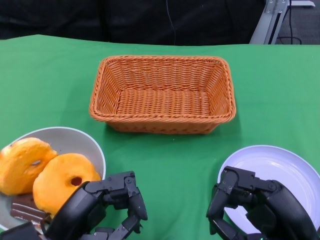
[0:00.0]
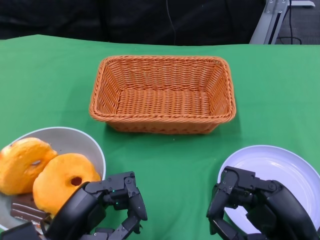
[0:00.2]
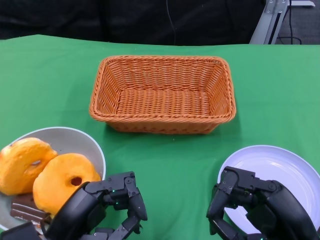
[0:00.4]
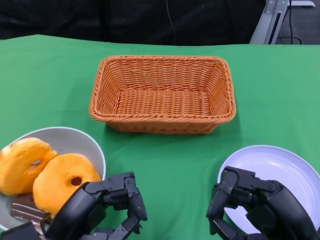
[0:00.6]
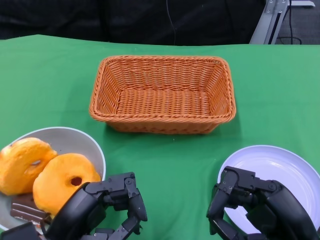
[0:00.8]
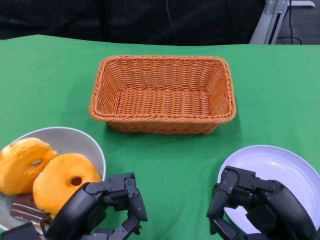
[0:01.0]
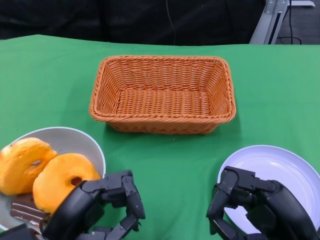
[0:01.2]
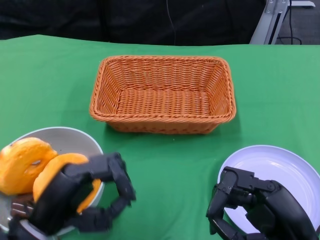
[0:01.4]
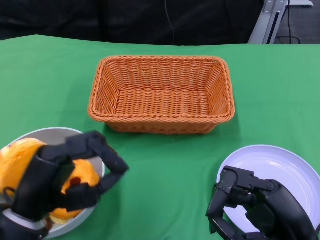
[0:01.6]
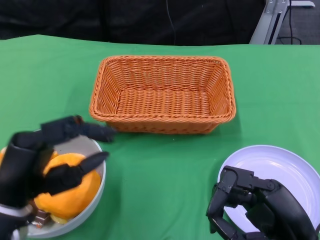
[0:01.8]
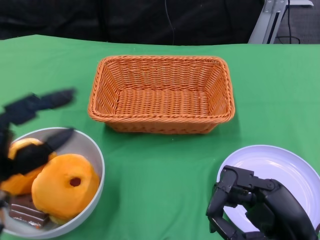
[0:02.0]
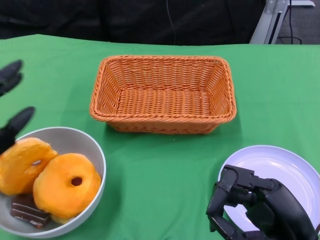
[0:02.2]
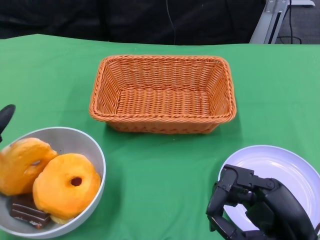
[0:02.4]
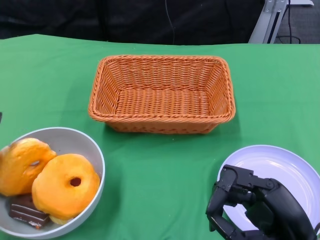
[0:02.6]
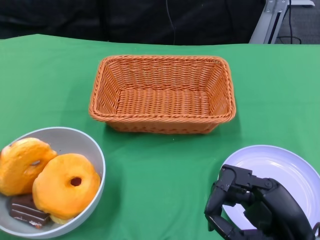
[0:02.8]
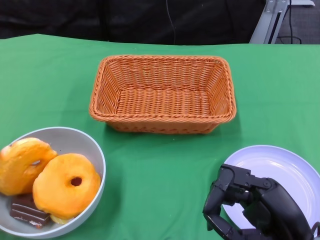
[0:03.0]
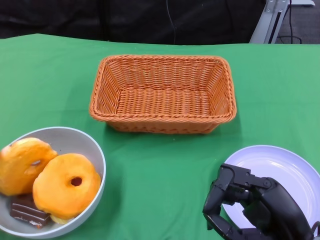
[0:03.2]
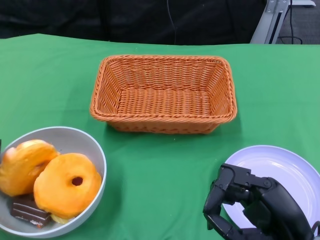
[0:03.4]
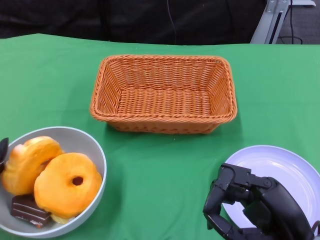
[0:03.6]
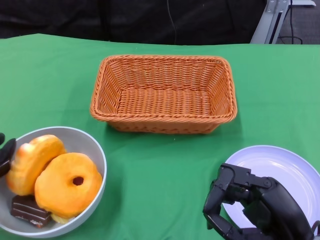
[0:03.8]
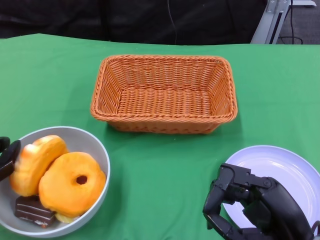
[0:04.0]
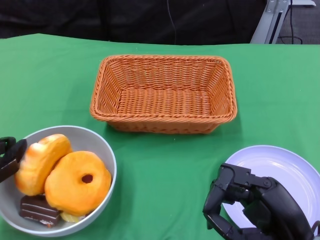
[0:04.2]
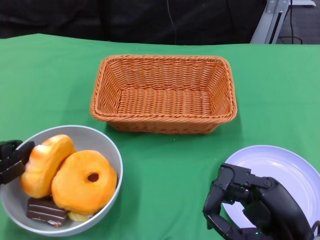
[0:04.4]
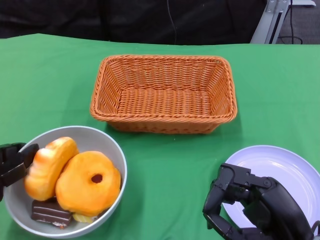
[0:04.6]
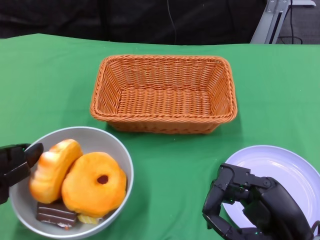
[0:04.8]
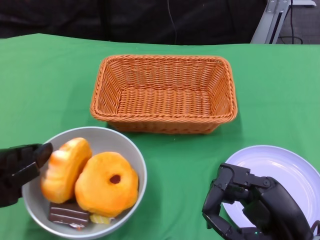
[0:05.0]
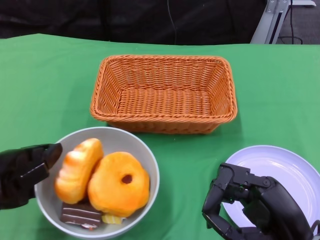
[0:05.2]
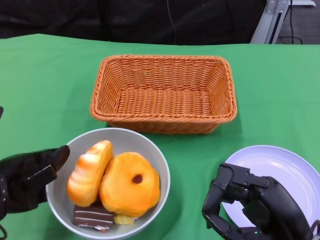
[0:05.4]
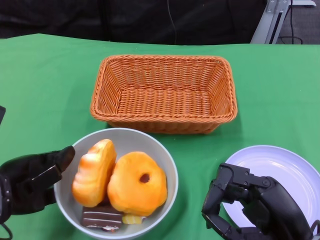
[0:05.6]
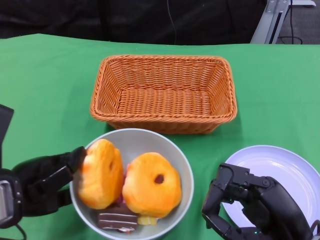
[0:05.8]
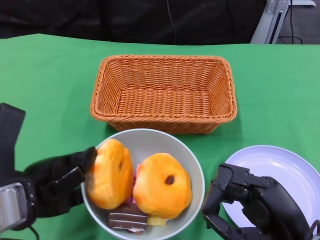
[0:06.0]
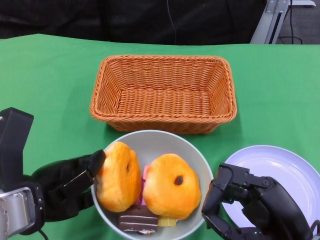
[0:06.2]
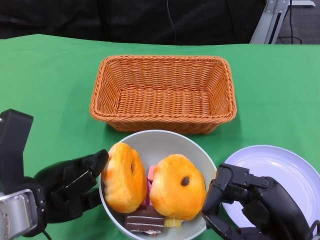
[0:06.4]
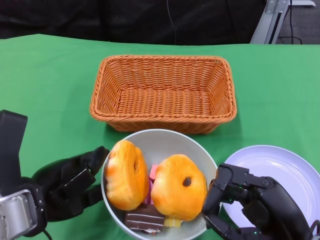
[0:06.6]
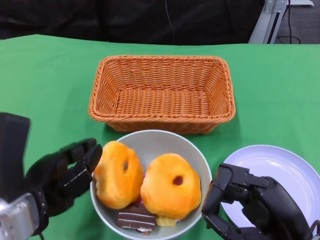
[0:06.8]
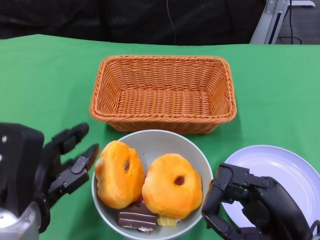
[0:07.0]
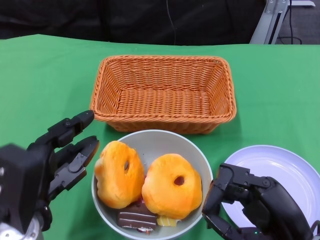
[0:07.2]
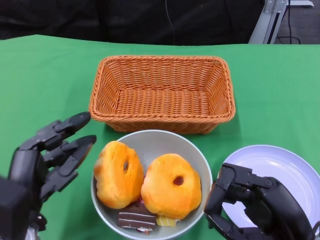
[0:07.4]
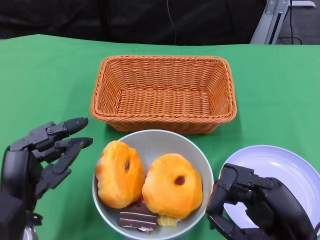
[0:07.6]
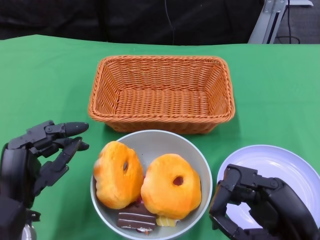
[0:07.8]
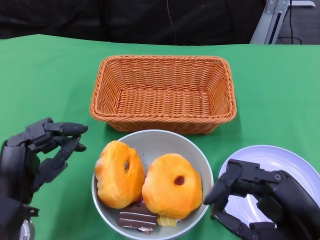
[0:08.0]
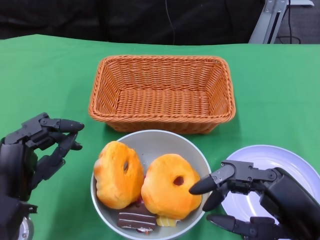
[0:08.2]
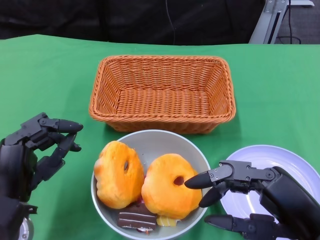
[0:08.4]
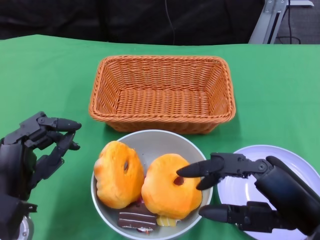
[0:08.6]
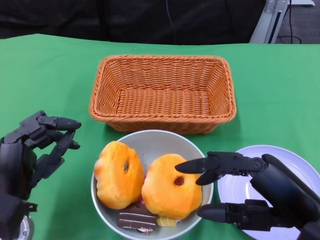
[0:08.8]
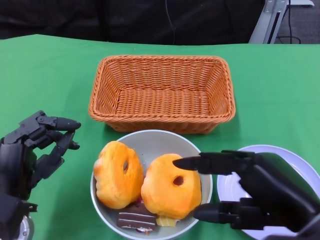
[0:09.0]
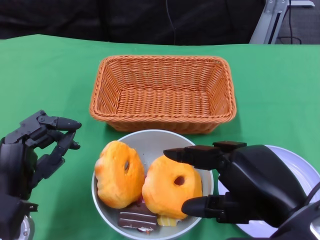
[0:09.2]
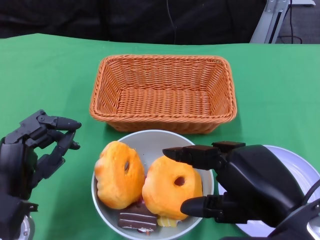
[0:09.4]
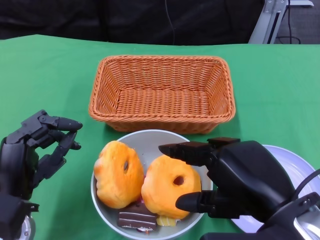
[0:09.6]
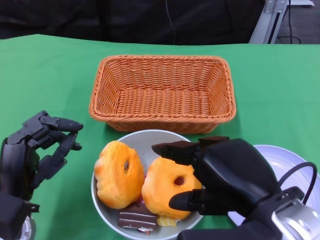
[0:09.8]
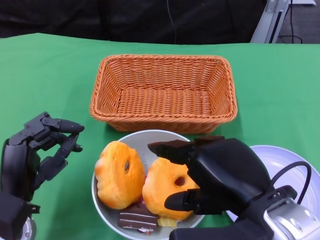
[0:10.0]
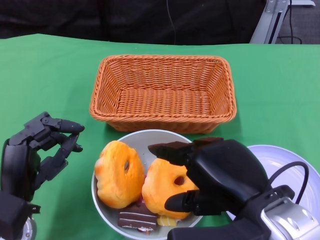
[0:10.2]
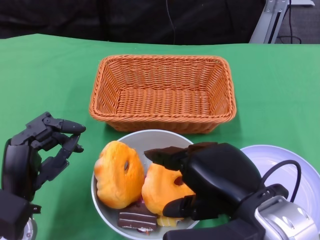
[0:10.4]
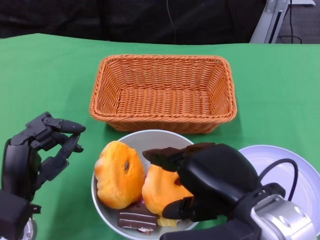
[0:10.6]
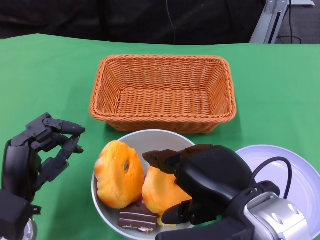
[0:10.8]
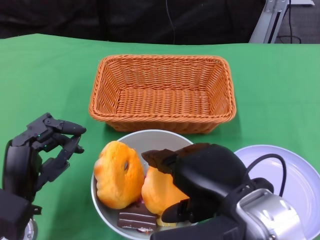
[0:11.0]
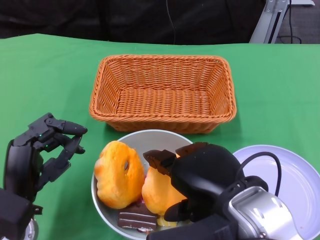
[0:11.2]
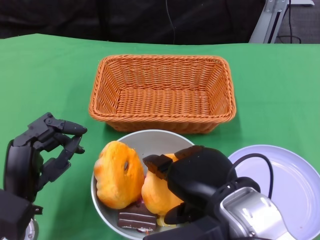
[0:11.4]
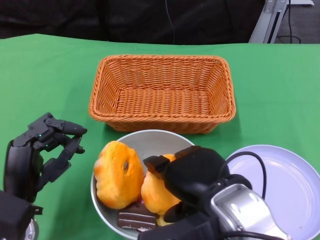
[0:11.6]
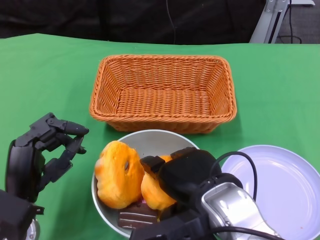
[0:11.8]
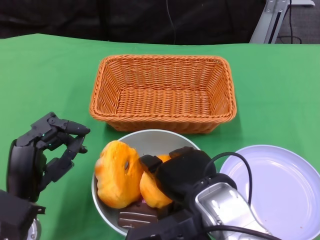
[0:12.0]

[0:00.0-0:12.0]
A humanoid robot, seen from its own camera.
Step, 0:00.0 to 0:06.8: Push the bowl to the center of the table using the left gripper.
0:01.6 to 0:03.0: The left hand goes about 10 cm to the left and forward.
0:04.4 to 0:06.0: The left hand heads to the right, covering some 5 cm.
0:06.0 to 0:07.6: The left hand shifts by approximately 5 cm.
0:07.6 to 0:09.0: The right hand heads upward, covering roughly 10 cm.
0:09.0 to 0:10.4: The right hand goes some 5 cm to the left.
0:10.4 to 0:12.0: The right hand goes roughly 5 cm to the left.

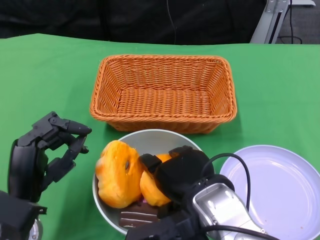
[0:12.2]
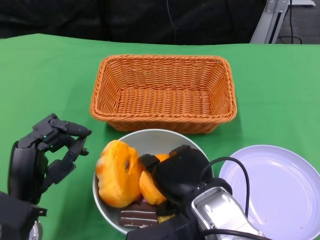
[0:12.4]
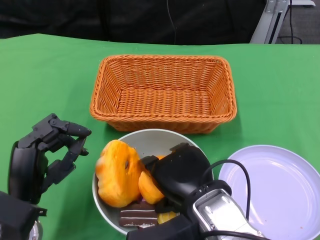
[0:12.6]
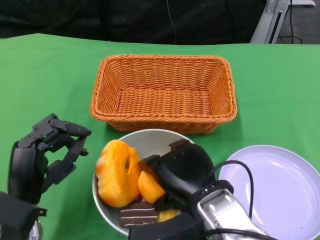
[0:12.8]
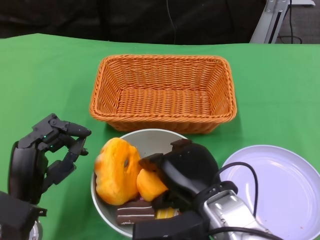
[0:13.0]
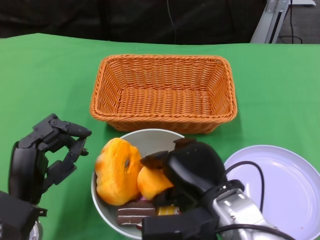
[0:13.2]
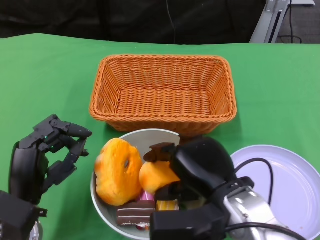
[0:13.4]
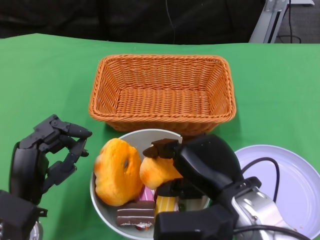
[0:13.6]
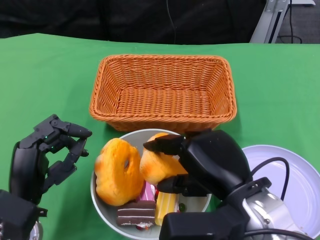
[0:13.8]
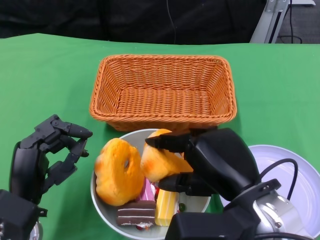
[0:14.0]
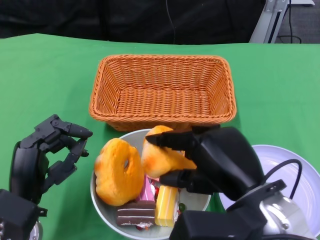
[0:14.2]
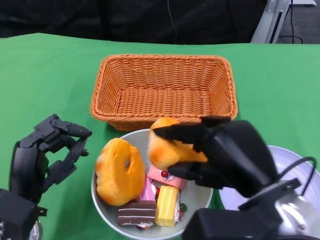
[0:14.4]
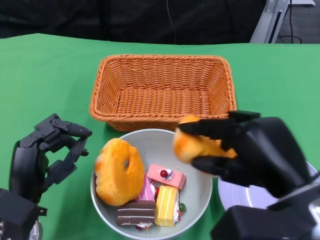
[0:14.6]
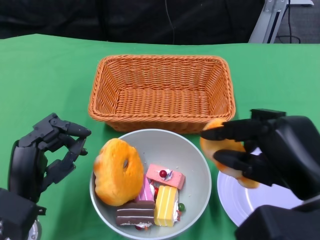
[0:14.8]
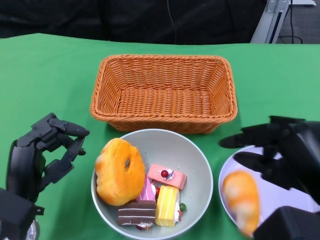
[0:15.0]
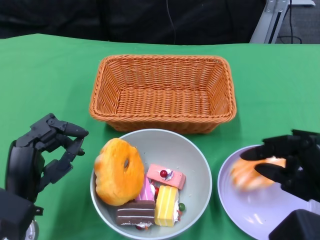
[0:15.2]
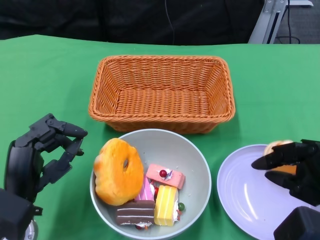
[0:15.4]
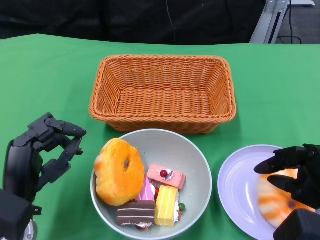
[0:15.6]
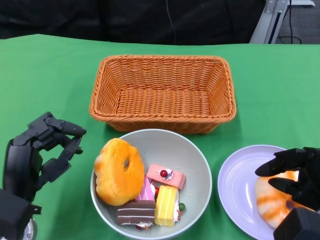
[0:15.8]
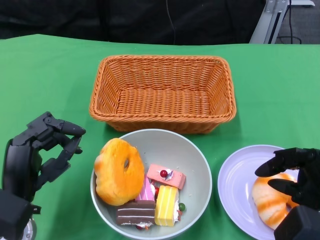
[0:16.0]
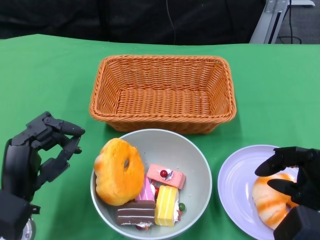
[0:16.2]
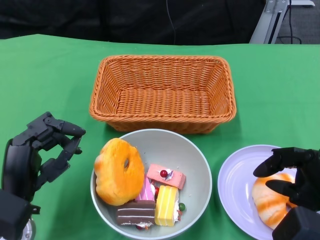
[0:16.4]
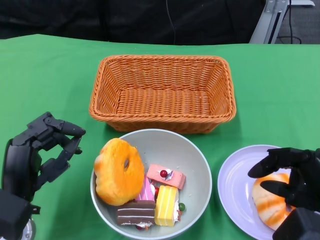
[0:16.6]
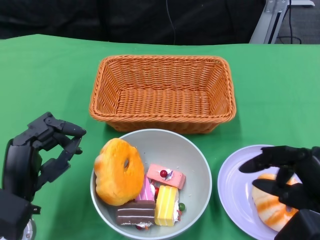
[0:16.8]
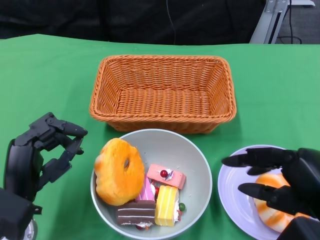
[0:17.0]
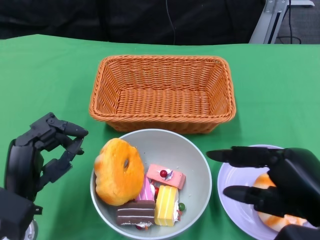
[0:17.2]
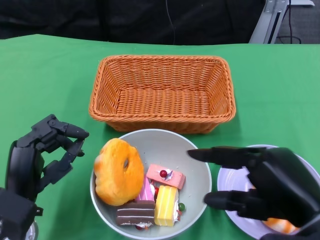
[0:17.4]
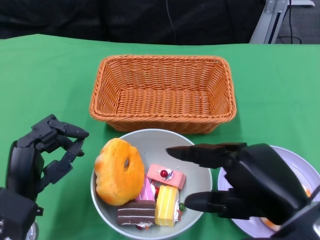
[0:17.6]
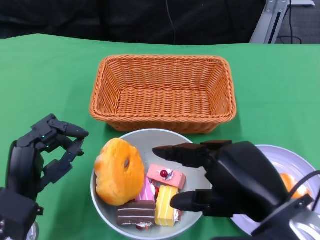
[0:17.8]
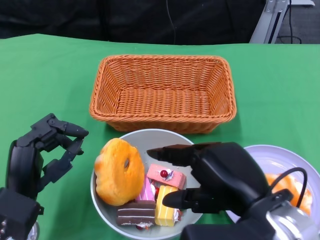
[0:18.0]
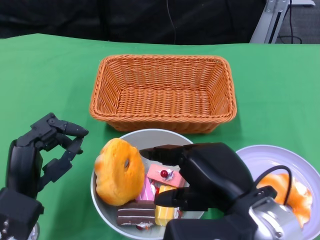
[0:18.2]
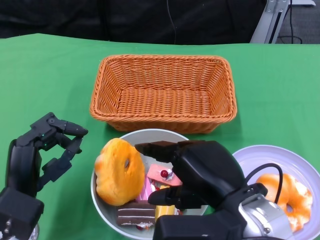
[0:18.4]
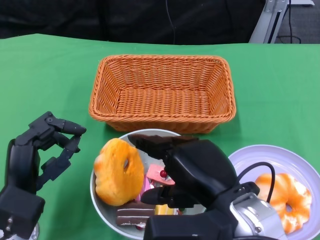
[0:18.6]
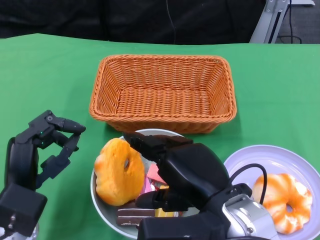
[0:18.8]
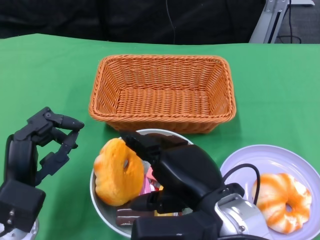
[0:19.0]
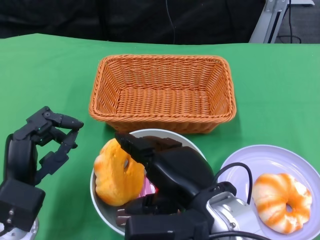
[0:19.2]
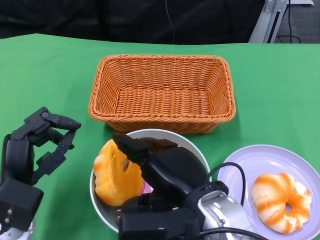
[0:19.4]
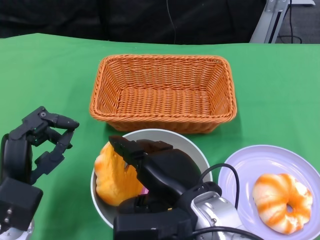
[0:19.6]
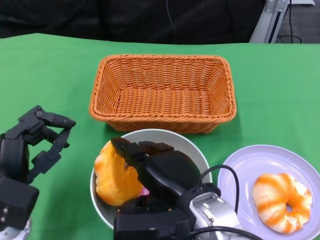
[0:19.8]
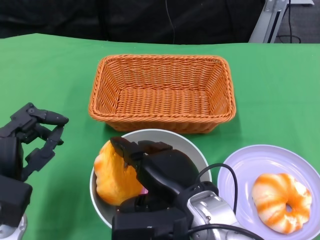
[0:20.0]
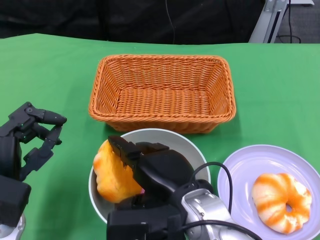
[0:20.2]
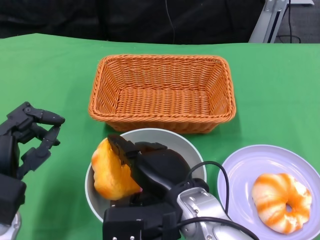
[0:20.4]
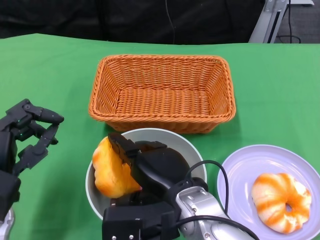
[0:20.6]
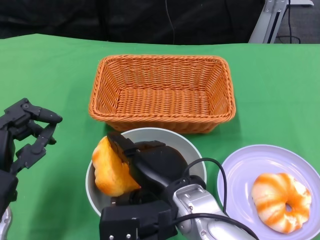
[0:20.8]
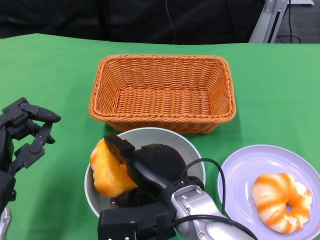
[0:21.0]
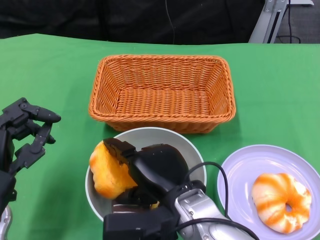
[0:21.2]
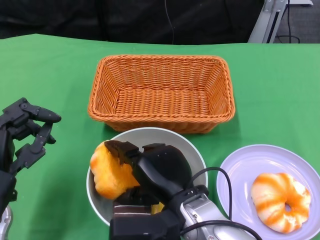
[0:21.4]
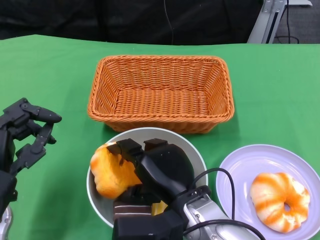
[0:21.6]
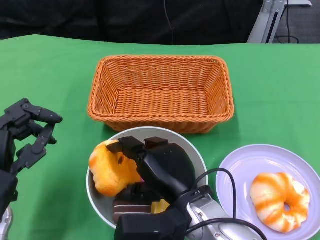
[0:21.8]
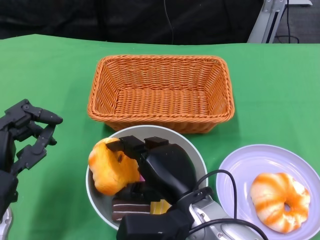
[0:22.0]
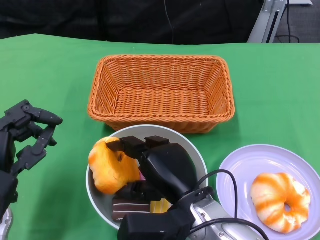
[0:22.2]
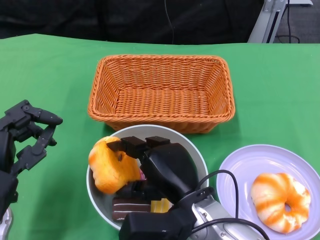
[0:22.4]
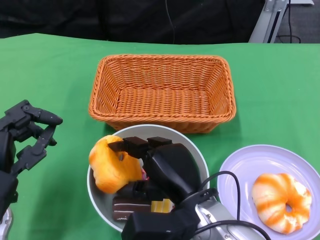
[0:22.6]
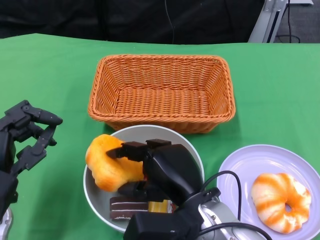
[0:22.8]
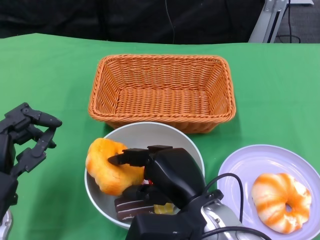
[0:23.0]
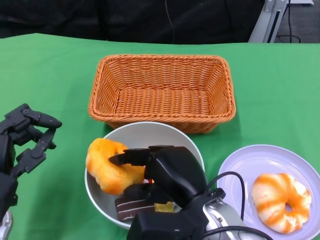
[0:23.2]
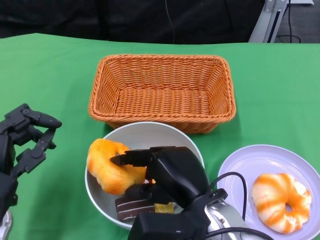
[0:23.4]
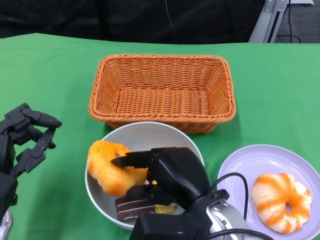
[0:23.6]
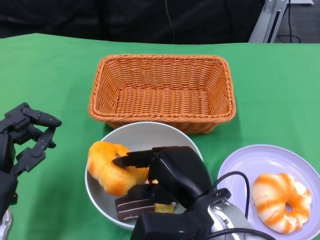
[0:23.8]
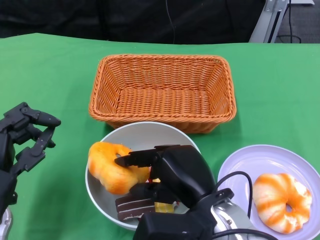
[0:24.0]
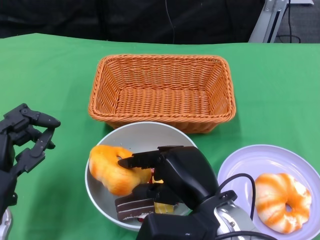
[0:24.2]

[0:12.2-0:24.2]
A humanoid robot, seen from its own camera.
0:13.8 to 0:15.2: The right hand moves to the right and backward, about 10 cm.
0:15.2 to 0:16.6: The hands stay close to where they were, moving slightly.
0:16.6 to 0:18.2: The right hand shifts about 10 cm to the left.
0:18.2 to 0:19.8: The right hand heads to the left, covering approximately 5 cm.
0:19.8 to 0:21.2: There are only small adjustments of the hands.
0:22.6 to 0:24.2: The hands move only a little.
